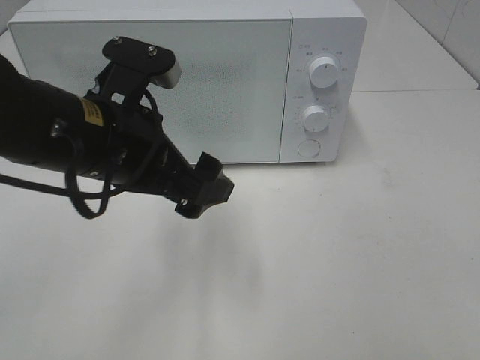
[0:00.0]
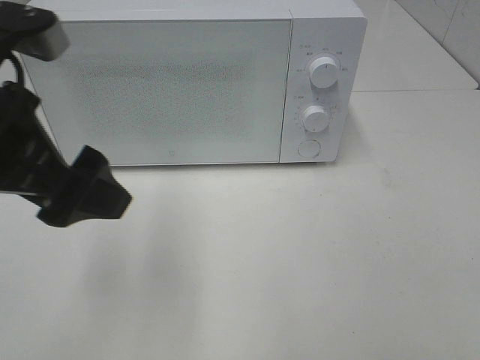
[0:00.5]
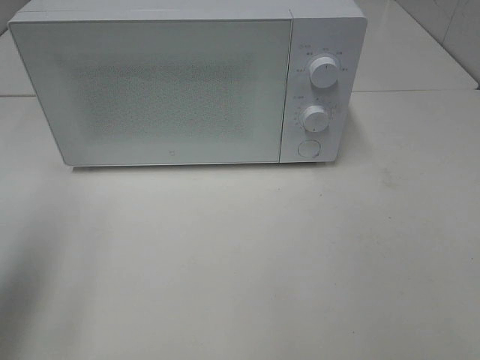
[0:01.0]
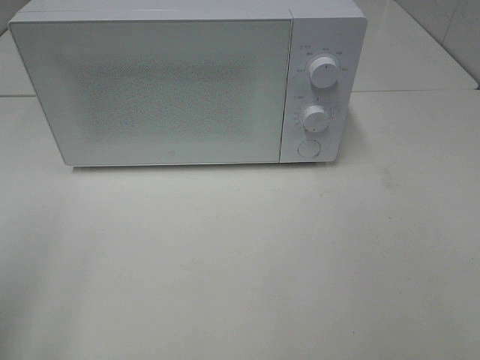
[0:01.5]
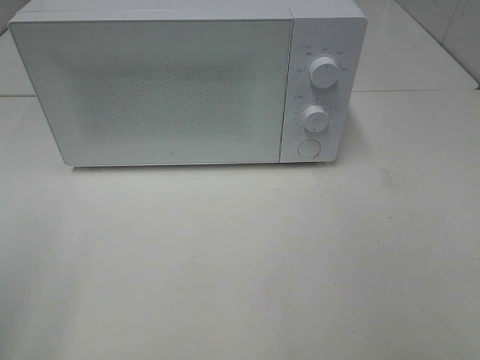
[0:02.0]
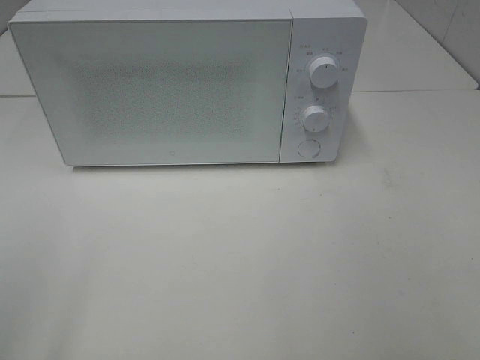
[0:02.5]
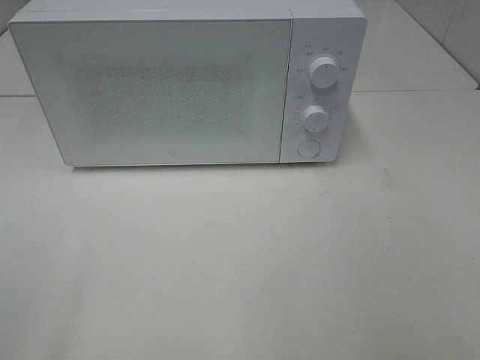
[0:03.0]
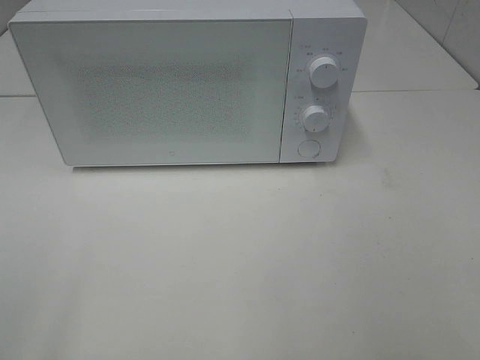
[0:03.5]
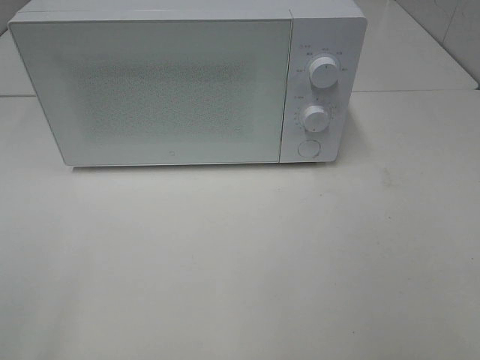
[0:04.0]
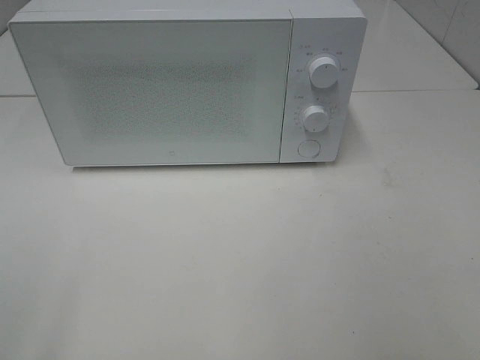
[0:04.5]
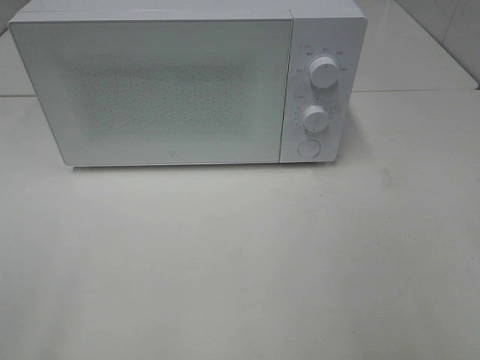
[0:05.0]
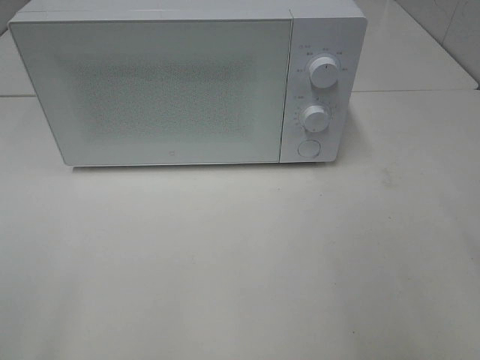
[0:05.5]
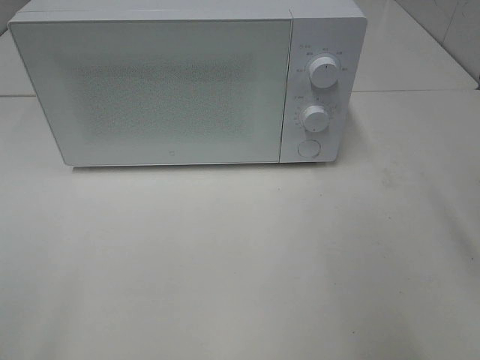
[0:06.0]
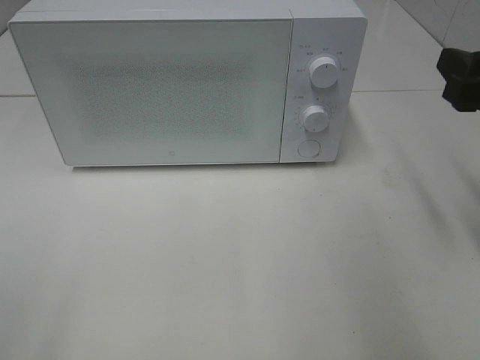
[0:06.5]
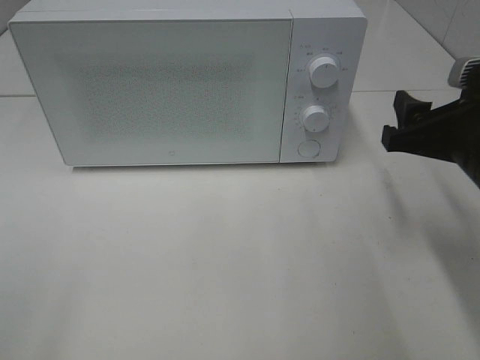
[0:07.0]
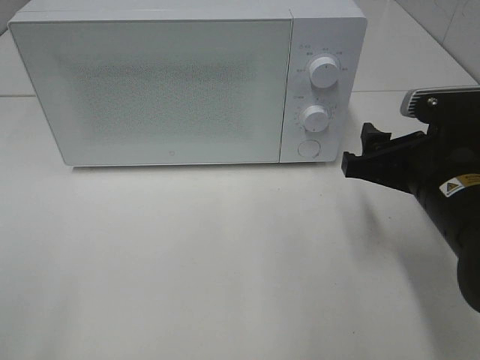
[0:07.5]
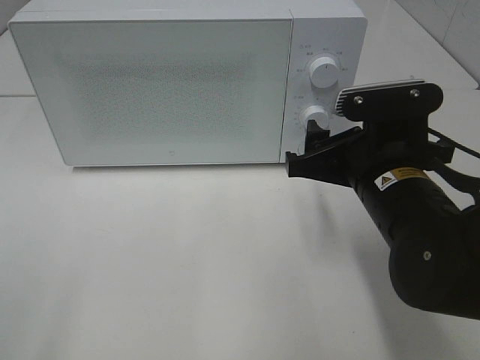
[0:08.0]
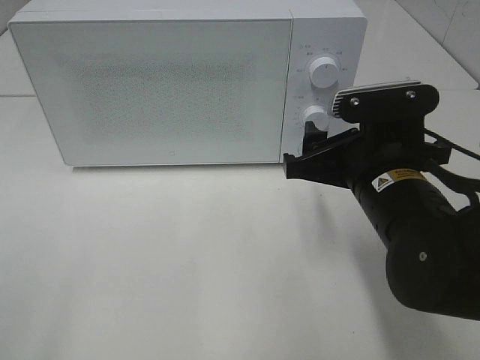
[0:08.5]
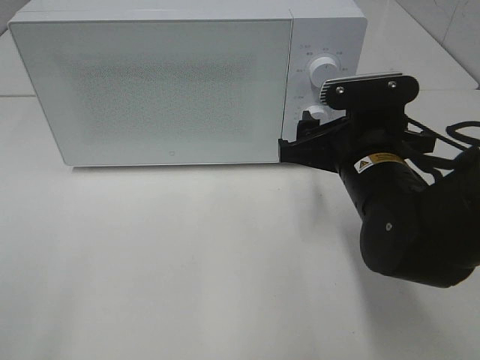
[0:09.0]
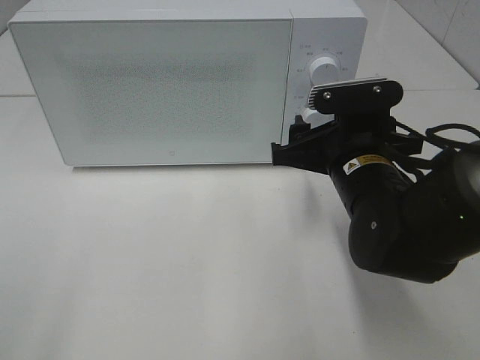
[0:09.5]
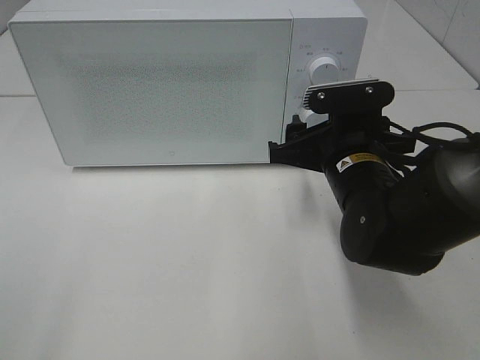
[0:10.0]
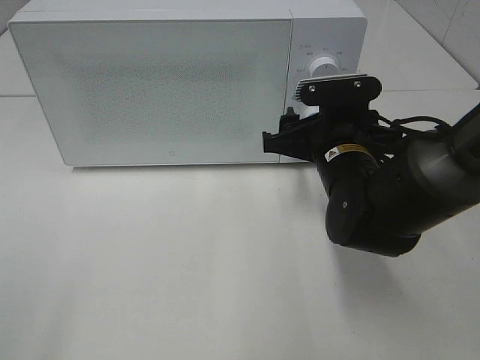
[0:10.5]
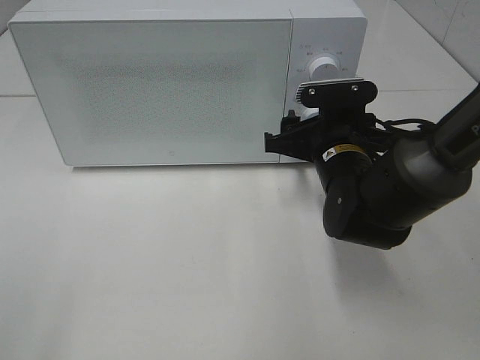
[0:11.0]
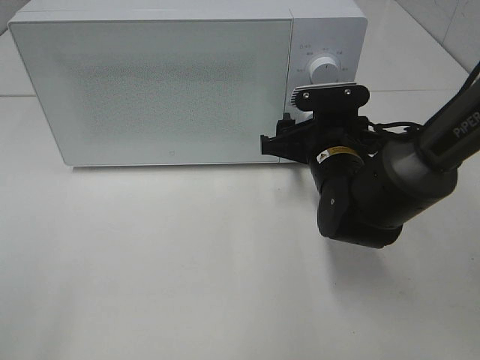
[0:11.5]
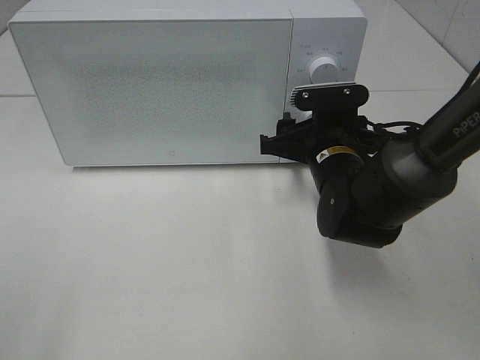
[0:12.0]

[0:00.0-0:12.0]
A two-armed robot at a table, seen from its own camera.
Task of the whole recording: Heat the burger.
0:00.0 to 0:02.0: The left gripper moves to the left and backward, about 25 cm.
0:06.0 to 0:08.0: The right gripper is displaced to the left, downward and forward by some 20 cm.
0:08.0 to 0:10.0: The right gripper moves about 5 cm.
0:10.0 to 0:12.0: The right gripper ends up roughly 5 cm from where it was.

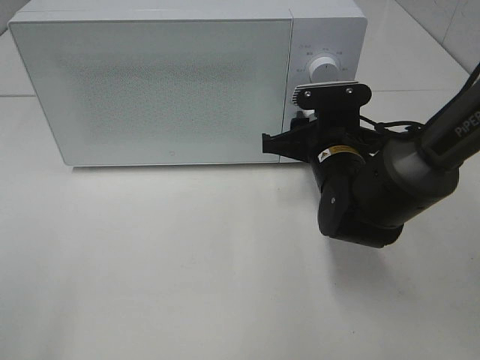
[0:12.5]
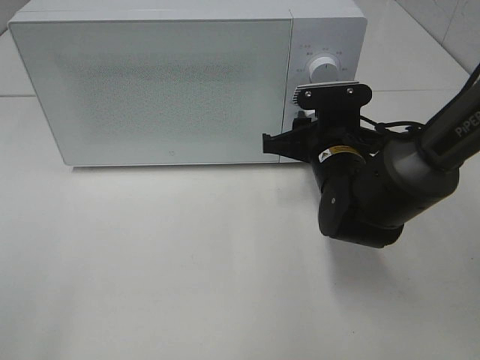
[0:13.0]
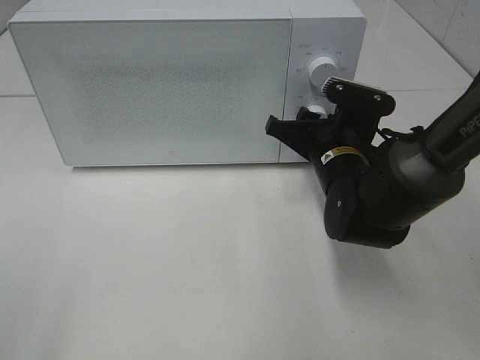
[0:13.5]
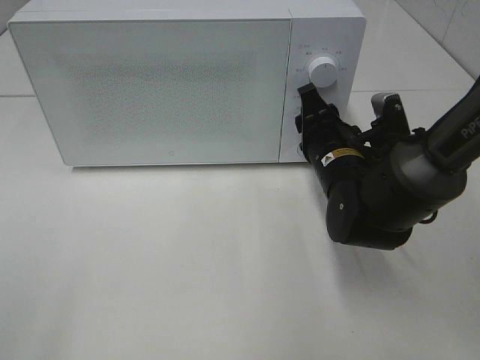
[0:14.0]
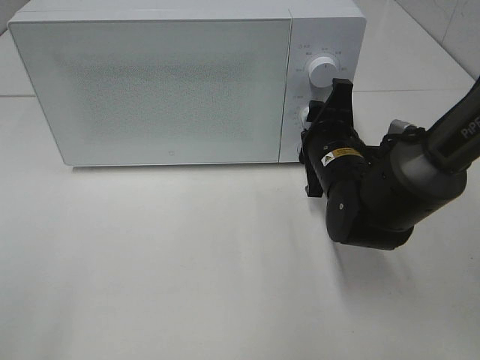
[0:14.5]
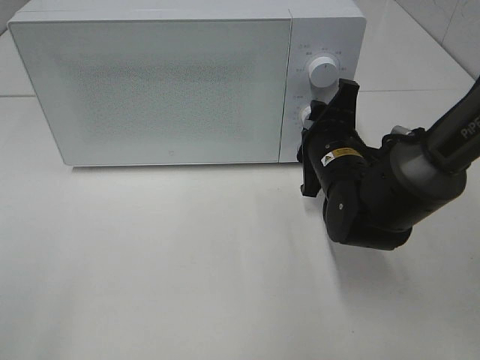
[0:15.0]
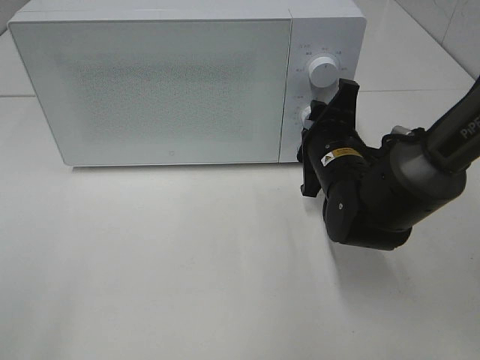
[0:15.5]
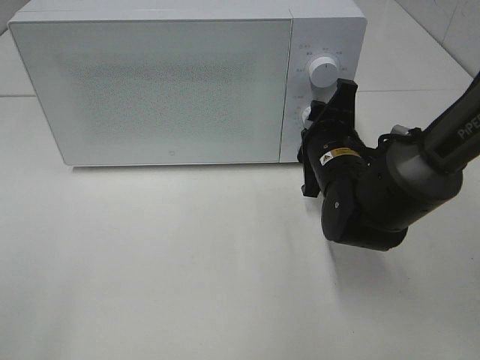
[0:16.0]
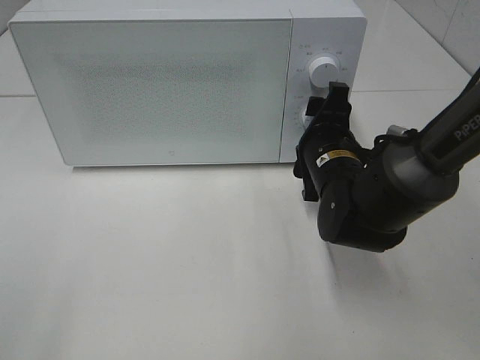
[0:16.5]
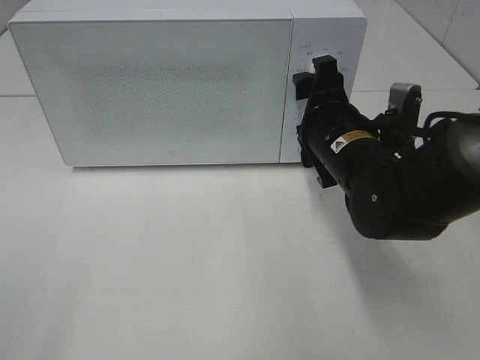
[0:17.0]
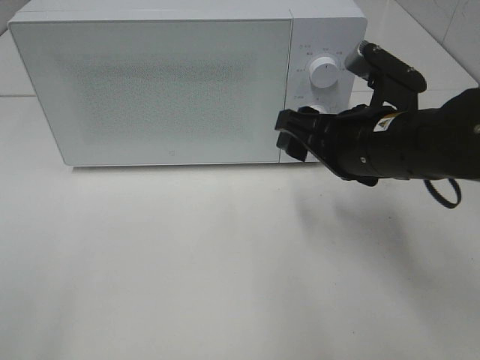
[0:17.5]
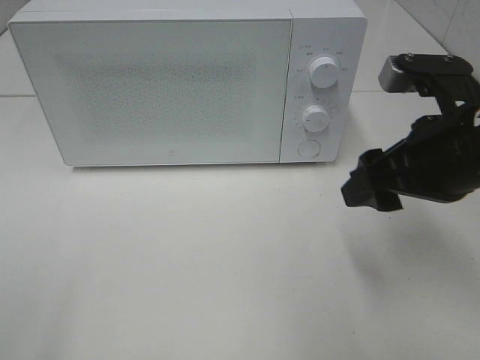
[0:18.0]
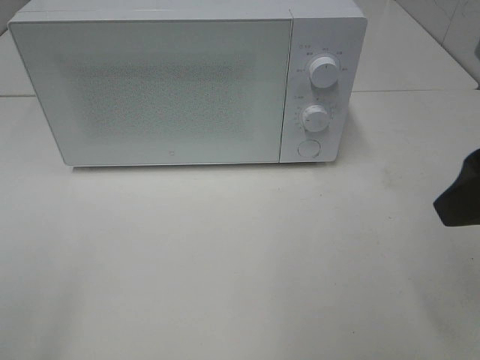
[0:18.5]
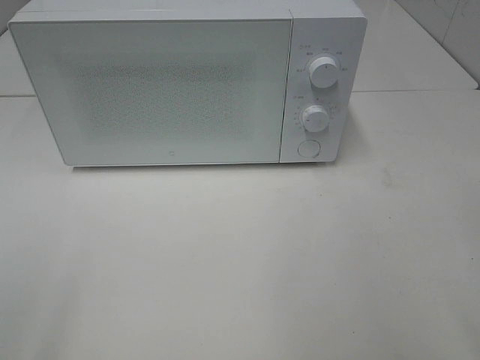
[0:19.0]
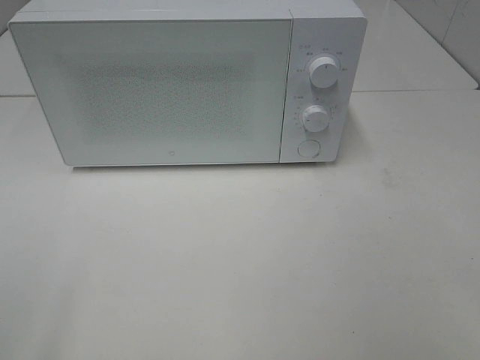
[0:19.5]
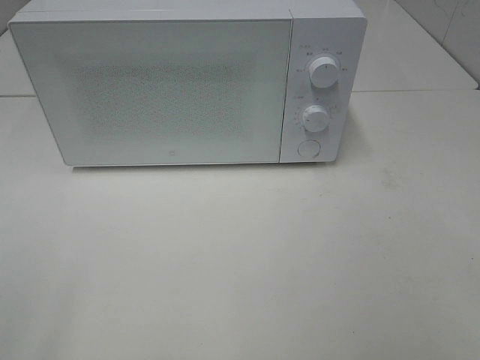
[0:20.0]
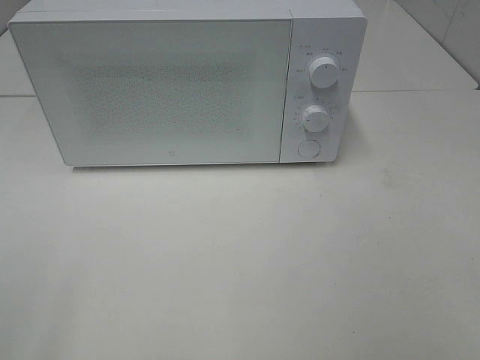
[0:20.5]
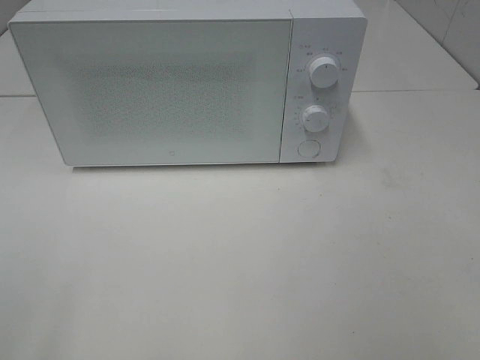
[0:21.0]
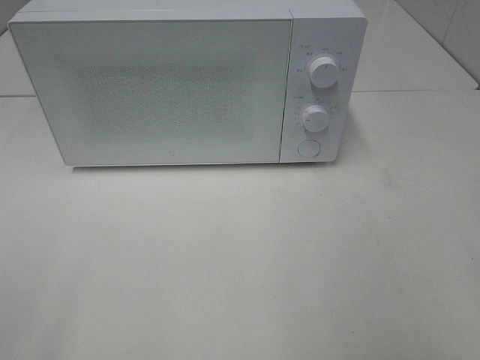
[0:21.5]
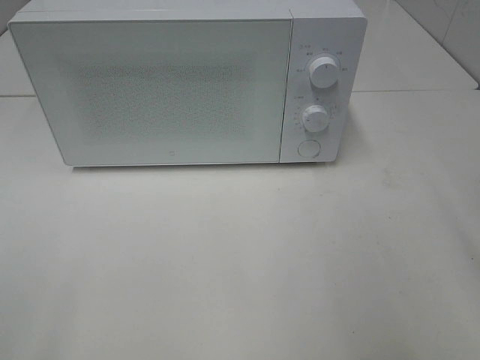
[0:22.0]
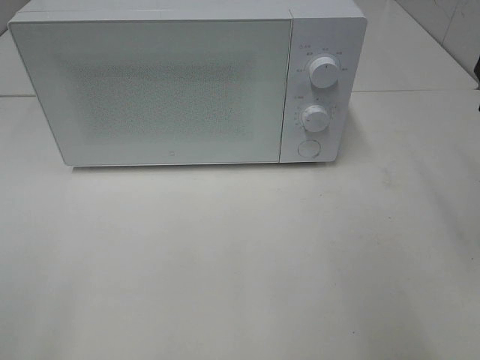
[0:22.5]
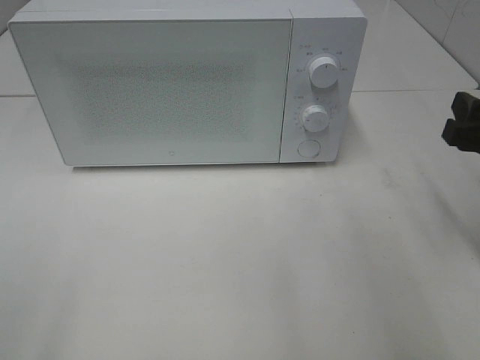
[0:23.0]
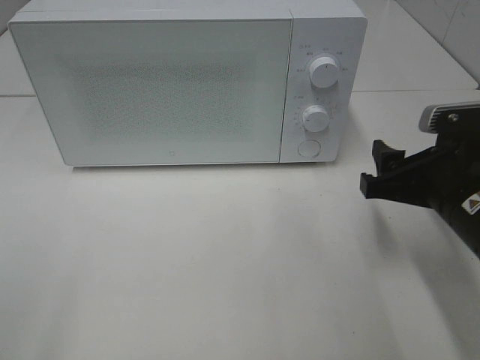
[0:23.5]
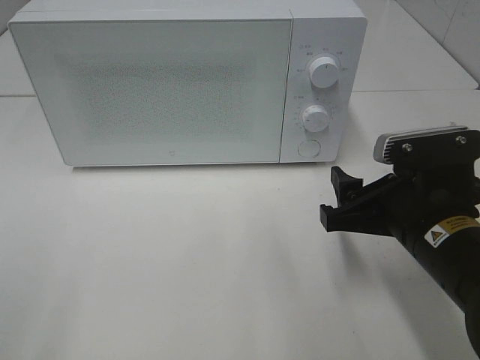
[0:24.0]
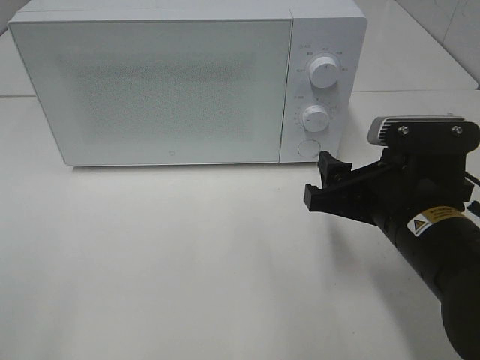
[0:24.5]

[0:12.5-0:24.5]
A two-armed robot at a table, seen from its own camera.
Task of the whole recording: Heat the burger.
Step, 0:12.5 to 0:16.0: Right hand: twist timer button.
0:14.5 to 0:16.5: The grippers make only small movements.
0:16.5 to 0:18.5: The right gripper moves upward, backward and to the right, approximately 25 cm.
0:18.5 to 0:20.5: The right gripper goes roughly 15 cm backward.
0:22.5 to 0:24.5: The right gripper travels to the left and downward by roughly 15 cm.

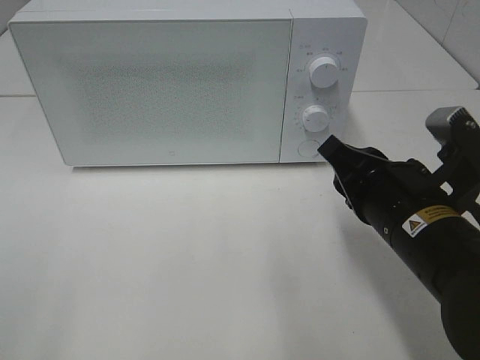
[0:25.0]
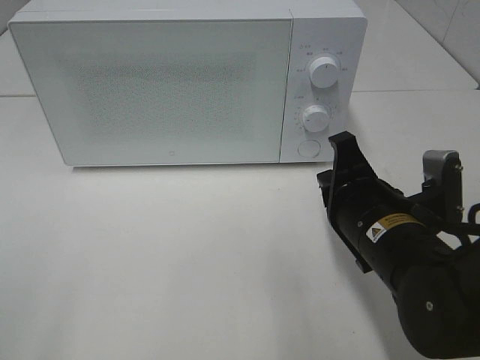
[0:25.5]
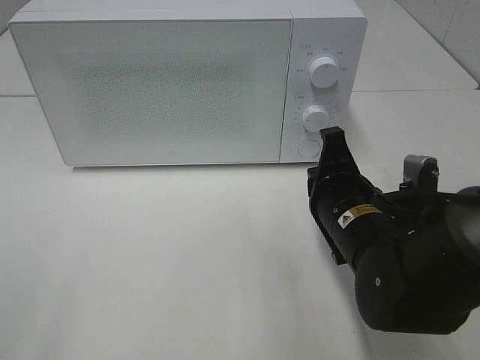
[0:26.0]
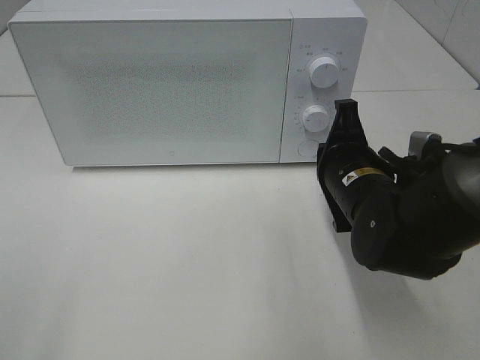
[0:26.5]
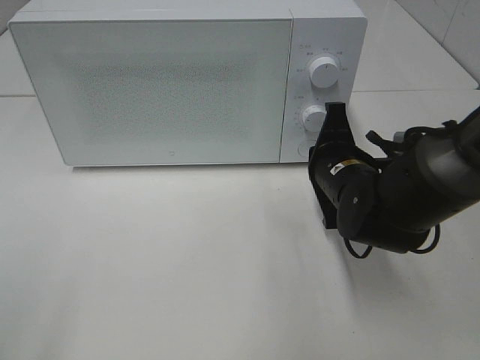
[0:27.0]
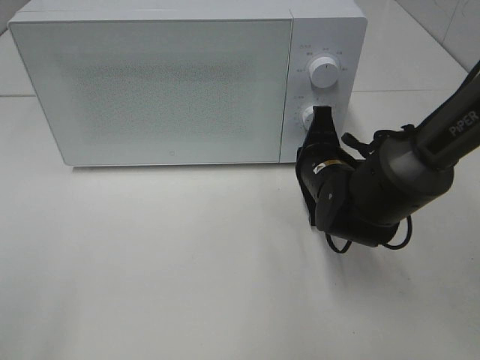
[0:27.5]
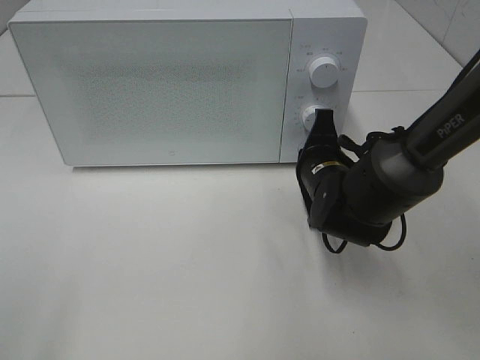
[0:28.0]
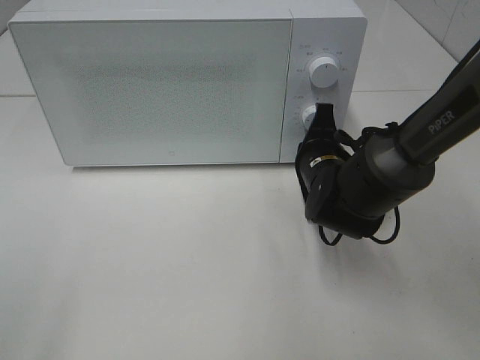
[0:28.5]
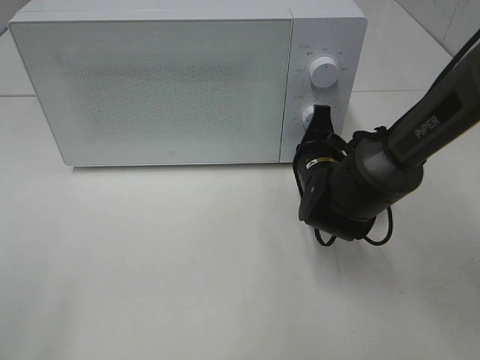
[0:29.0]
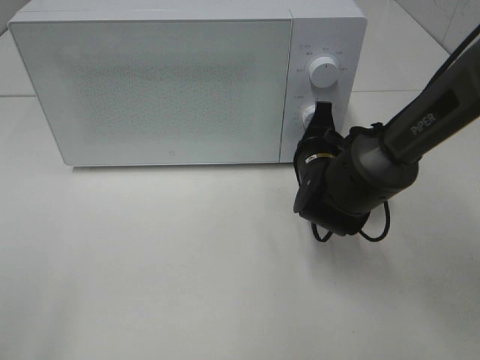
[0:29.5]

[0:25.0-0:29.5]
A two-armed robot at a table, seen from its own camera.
Task of the whole recording: Heat the burger.
0:25.0 to 0:27.0: The right gripper moves forward and downward, approximately 10 cm.
0:27.0 to 0:29.5: The right gripper shifts by roughly 5 cm.
